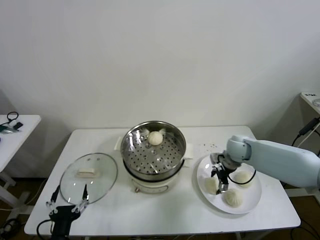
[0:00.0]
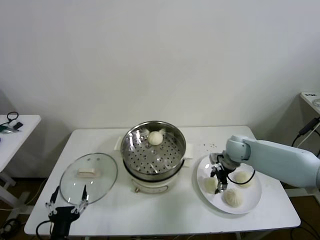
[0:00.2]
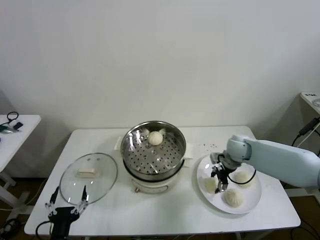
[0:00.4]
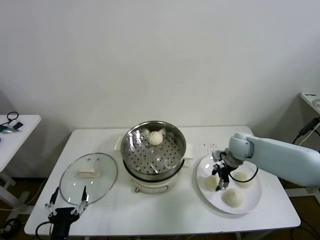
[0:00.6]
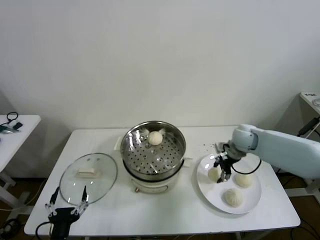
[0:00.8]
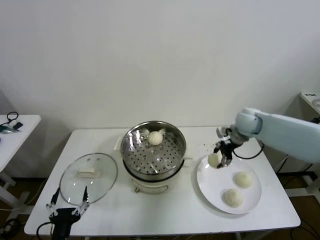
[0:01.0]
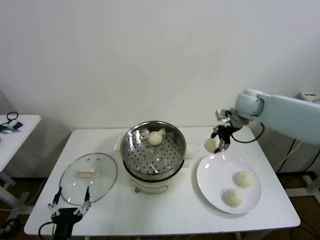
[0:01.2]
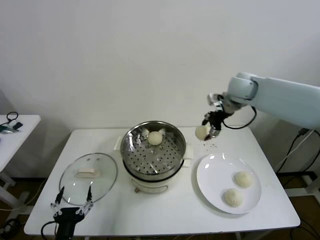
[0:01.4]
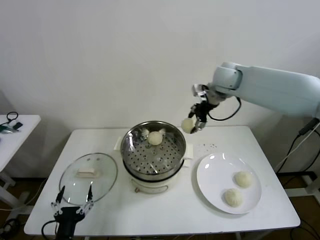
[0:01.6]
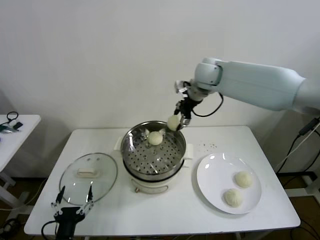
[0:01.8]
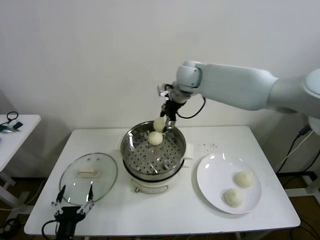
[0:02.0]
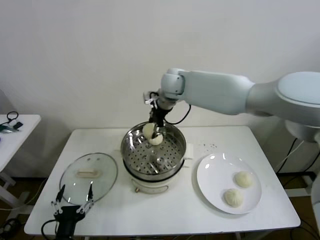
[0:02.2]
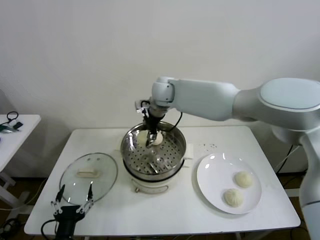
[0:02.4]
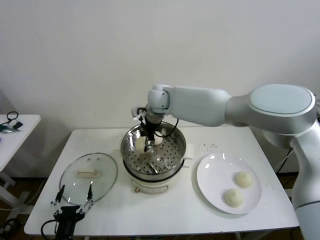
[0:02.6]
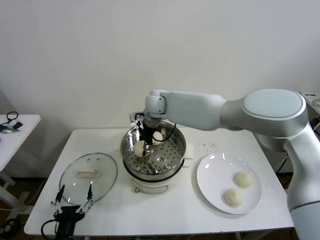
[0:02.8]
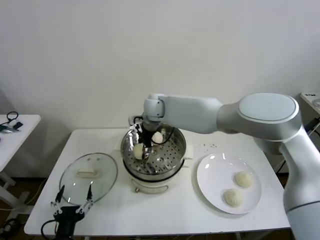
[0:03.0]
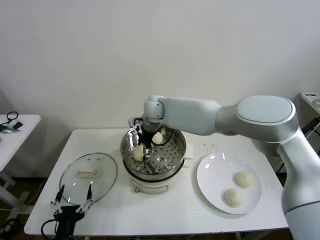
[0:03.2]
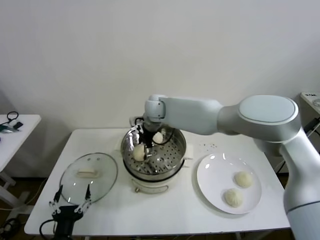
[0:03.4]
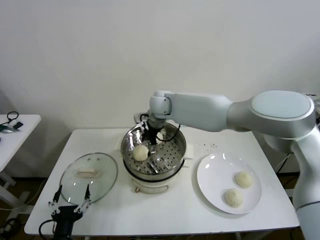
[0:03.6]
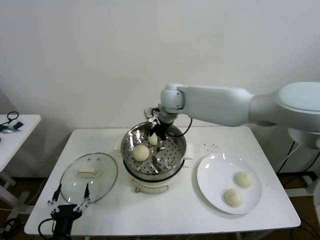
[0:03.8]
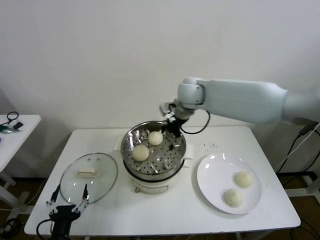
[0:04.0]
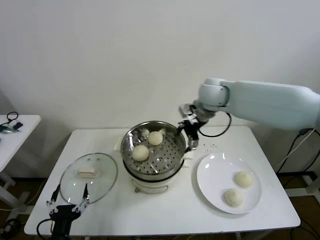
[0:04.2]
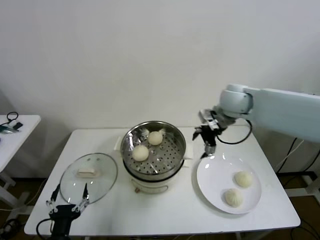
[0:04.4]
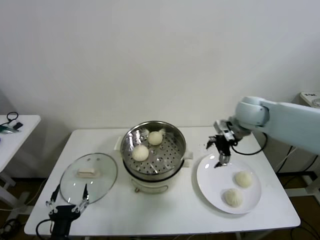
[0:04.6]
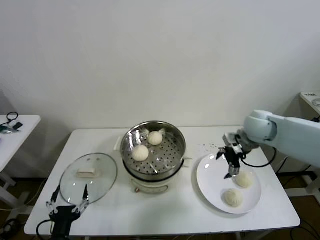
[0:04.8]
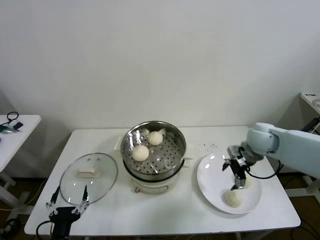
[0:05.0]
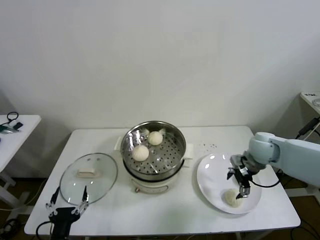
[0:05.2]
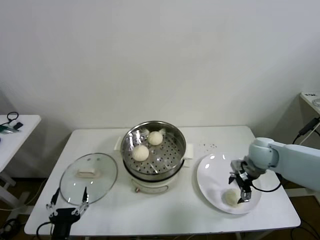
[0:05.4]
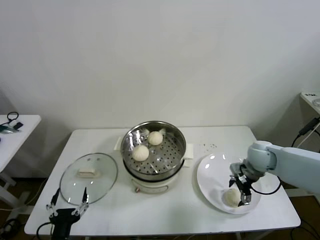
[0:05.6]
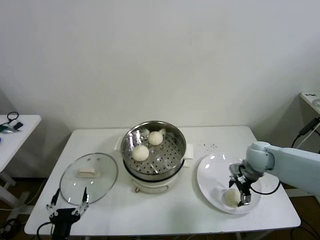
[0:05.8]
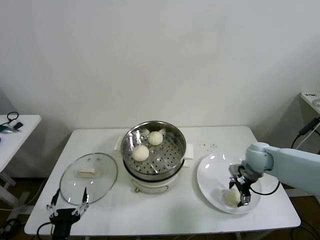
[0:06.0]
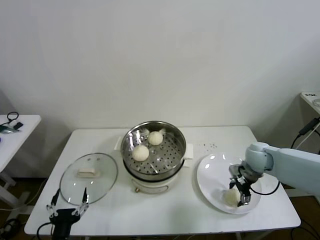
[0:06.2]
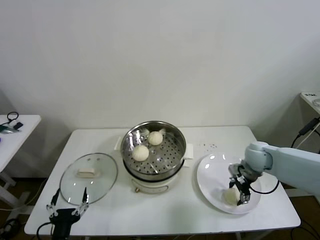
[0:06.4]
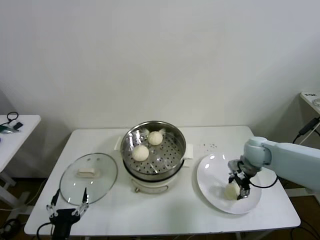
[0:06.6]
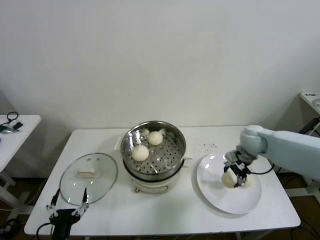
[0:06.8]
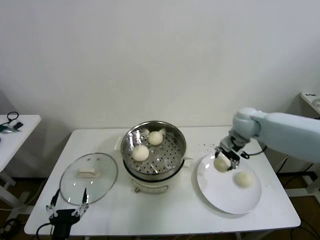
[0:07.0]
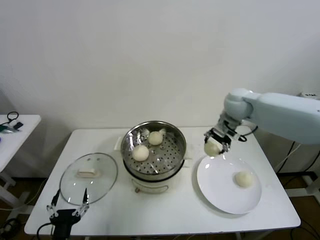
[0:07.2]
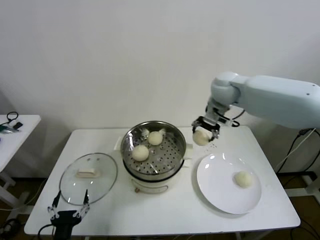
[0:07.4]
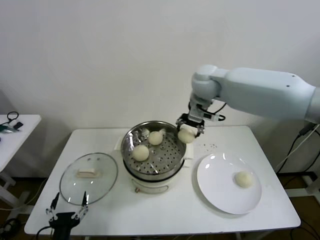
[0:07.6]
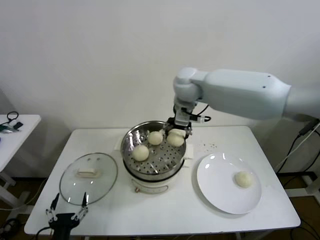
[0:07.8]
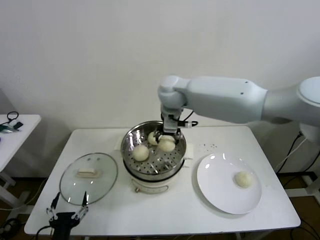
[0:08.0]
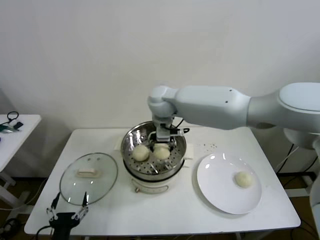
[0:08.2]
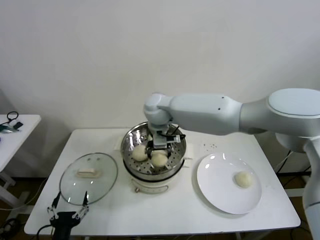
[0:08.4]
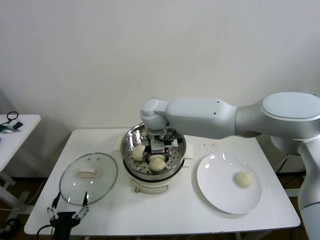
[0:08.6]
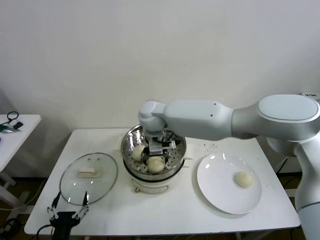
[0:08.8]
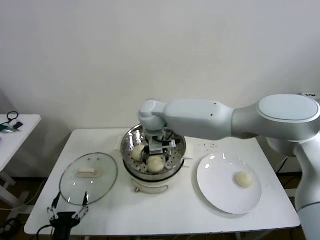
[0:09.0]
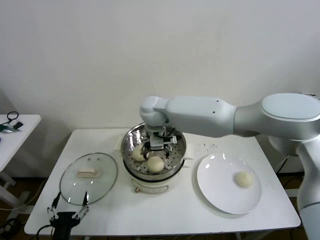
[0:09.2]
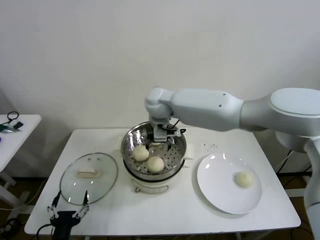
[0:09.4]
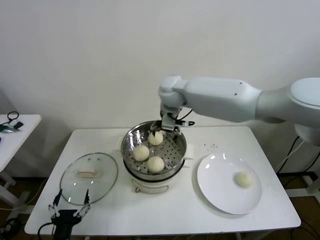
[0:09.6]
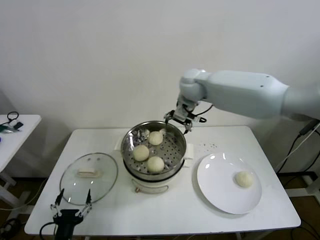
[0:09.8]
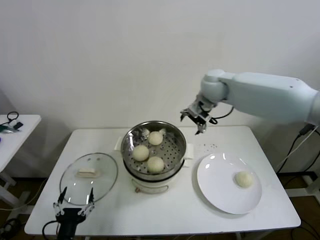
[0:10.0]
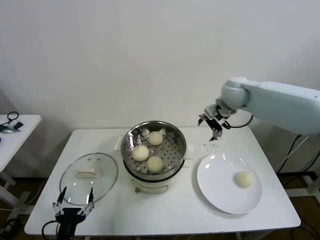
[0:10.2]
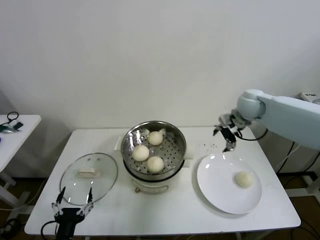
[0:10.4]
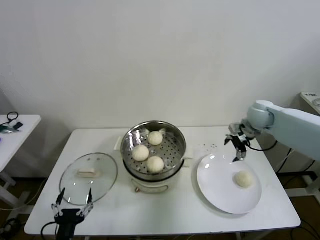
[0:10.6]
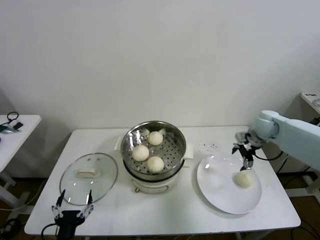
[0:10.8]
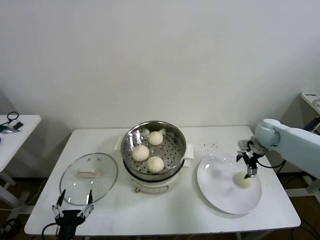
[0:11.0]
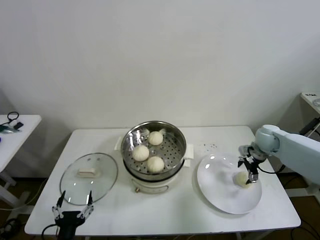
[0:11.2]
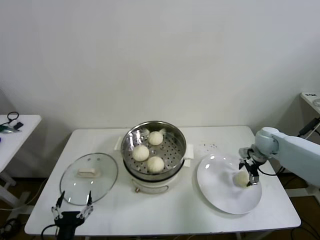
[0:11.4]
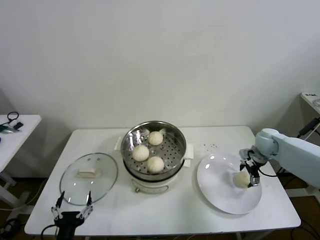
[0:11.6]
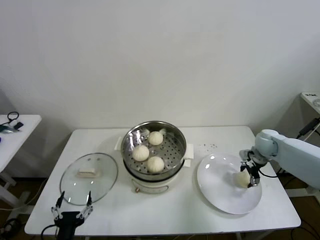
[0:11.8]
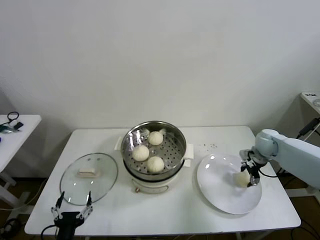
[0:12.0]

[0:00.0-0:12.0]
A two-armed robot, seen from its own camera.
Step, 0:00.4 to 0:03.0: Place the baozi on the steamer with right gripper.
Step, 0:03.2 to 0:06.2: Grasp the baozi in the plate with right gripper.
Step, 0:06.4 to 0:08.6: Place the baozi on the steamer with right gripper.
Step, 0:09.0 to 0:11.8: Grasp the baozi in the plate with right gripper.
0:00.0 to 0:01.6: The right gripper is displaced upward by approximately 25 cm, and closes its fingers.
0:01.6 to 0:03.0: The right gripper shifts some 25 cm to the left and downward.
0:03.0 to 0:04.4: The right gripper goes about 25 cm to the right, and opens up.
0:04.4 to 0:06.0: The right gripper is displaced downward and to the right by some 20 cm.
0:06.0 to 0:07.6: The right gripper heads upward and to the left, covering approximately 35 cm, and closes up.
0:07.6 to 0:09.0: The right gripper travels to the left and downward by roughly 20 cm, and opens up.
0:09.0 to 0:10.4: The right gripper is displaced to the right by approximately 35 cm.
0:10.4 to 0:12.0: The right gripper travels downward and to the right by roughly 20 cm, and closes its fingers.

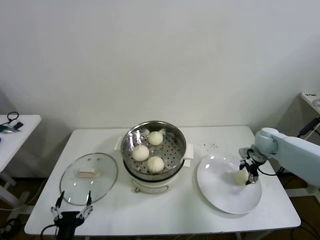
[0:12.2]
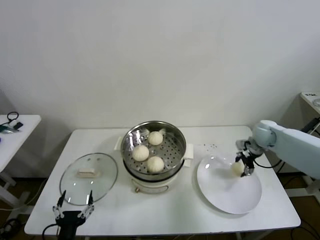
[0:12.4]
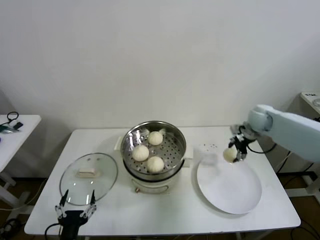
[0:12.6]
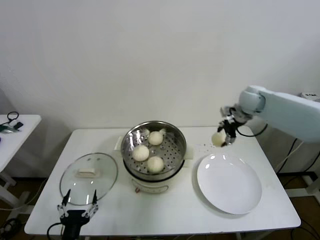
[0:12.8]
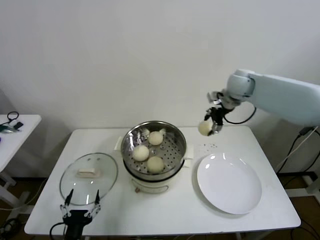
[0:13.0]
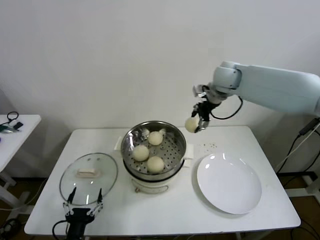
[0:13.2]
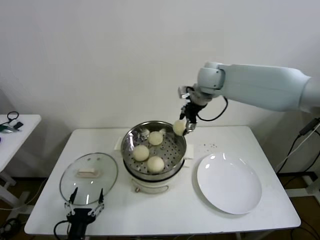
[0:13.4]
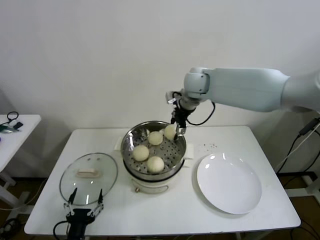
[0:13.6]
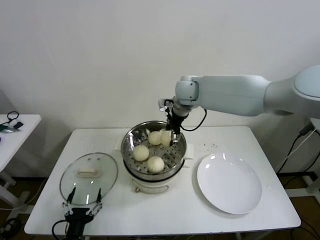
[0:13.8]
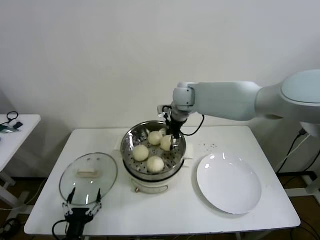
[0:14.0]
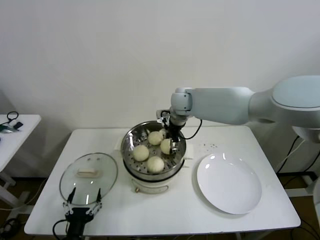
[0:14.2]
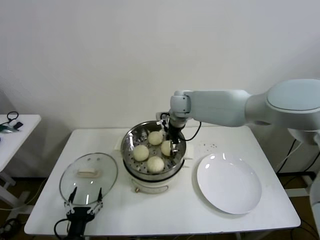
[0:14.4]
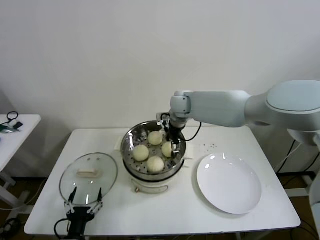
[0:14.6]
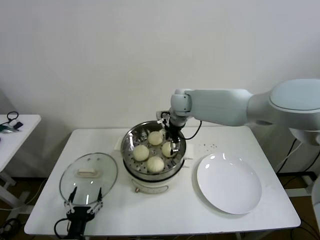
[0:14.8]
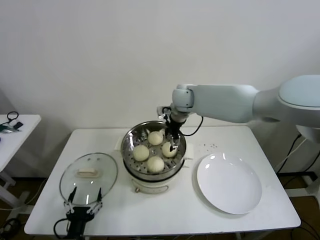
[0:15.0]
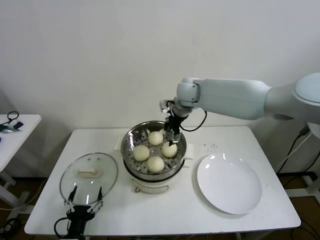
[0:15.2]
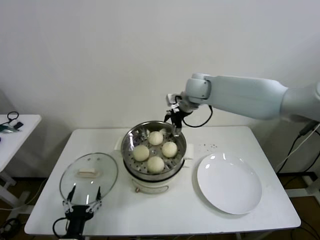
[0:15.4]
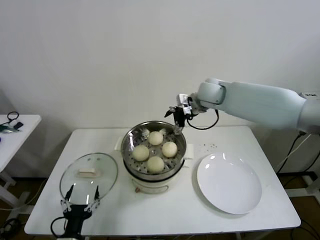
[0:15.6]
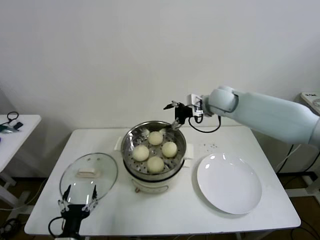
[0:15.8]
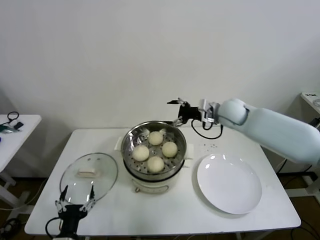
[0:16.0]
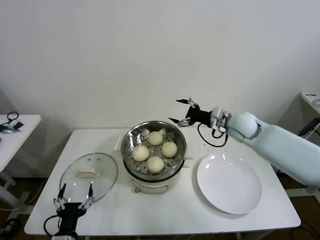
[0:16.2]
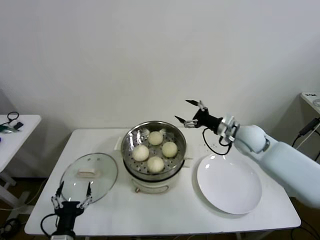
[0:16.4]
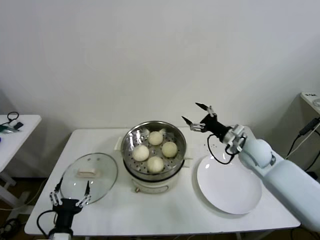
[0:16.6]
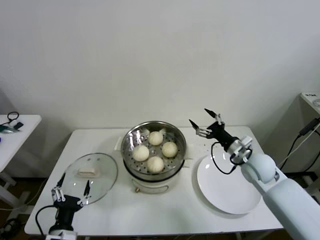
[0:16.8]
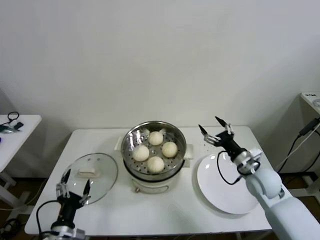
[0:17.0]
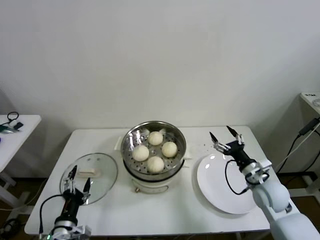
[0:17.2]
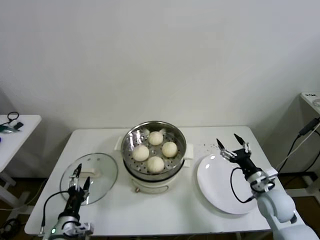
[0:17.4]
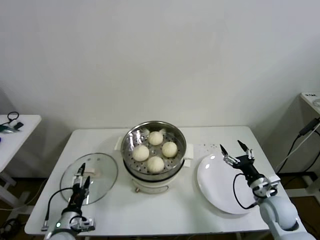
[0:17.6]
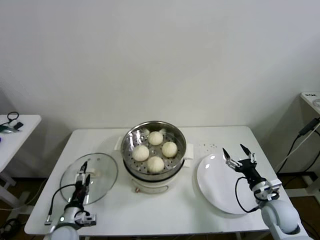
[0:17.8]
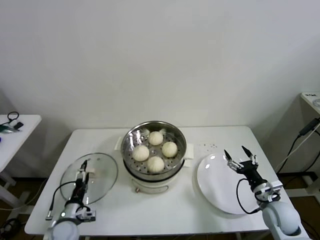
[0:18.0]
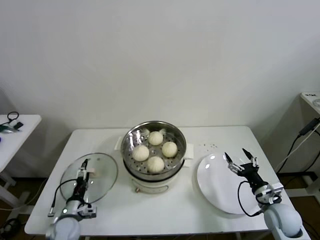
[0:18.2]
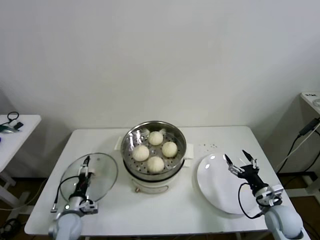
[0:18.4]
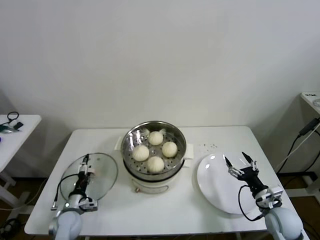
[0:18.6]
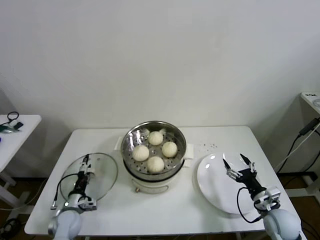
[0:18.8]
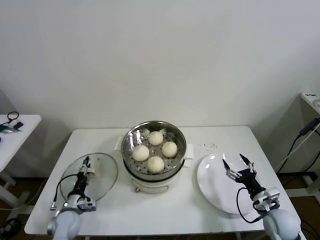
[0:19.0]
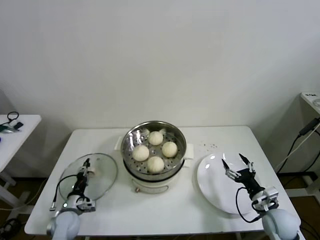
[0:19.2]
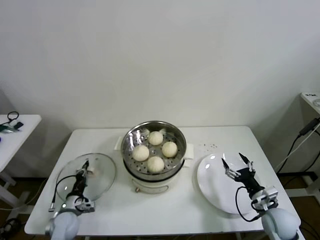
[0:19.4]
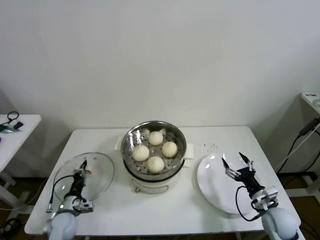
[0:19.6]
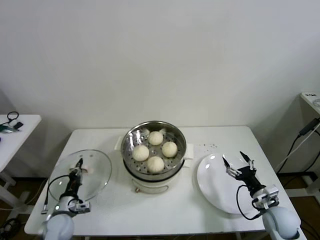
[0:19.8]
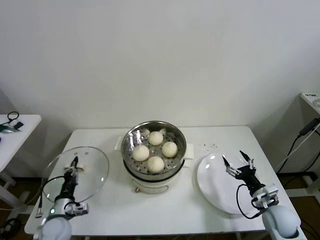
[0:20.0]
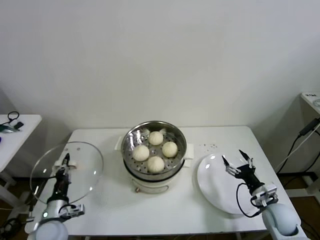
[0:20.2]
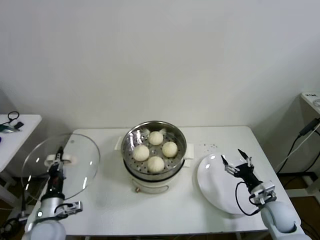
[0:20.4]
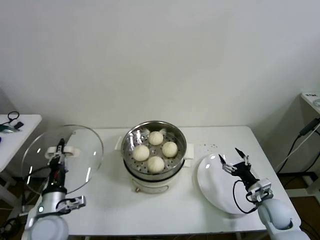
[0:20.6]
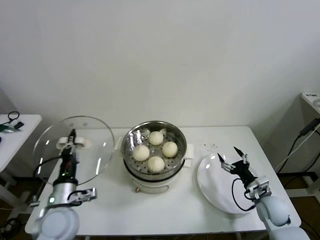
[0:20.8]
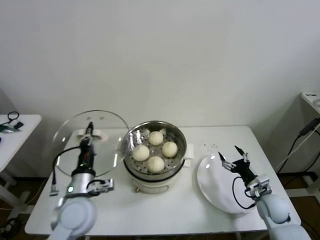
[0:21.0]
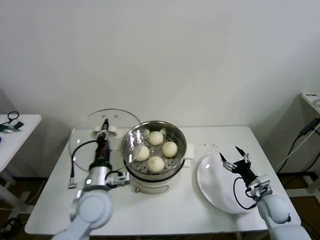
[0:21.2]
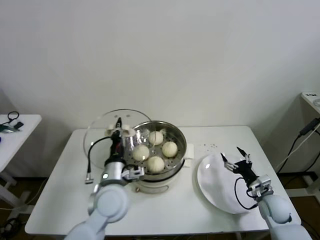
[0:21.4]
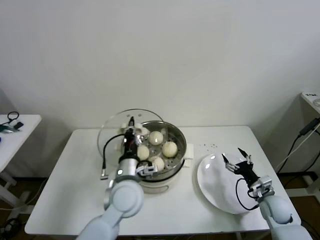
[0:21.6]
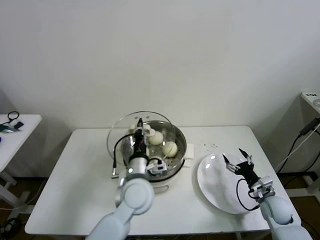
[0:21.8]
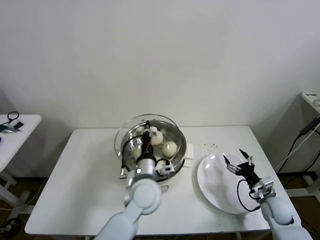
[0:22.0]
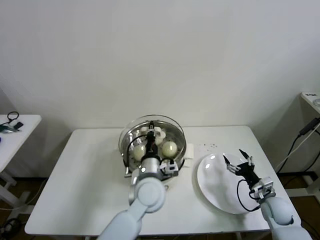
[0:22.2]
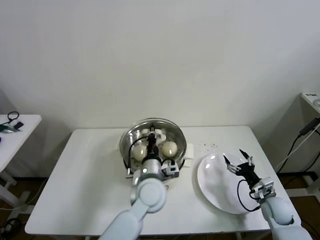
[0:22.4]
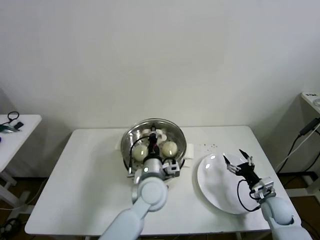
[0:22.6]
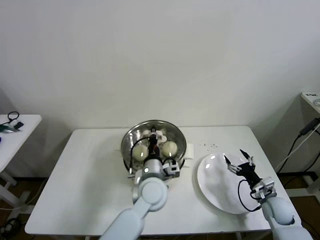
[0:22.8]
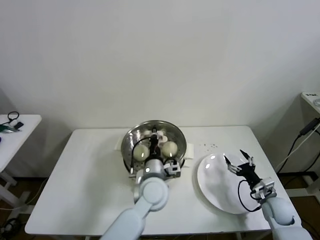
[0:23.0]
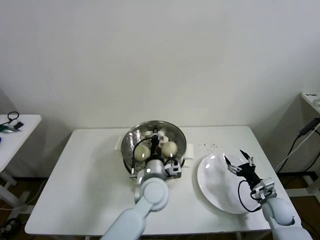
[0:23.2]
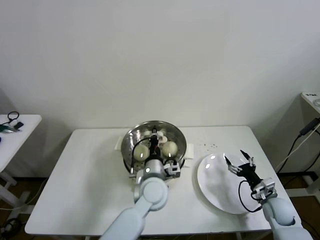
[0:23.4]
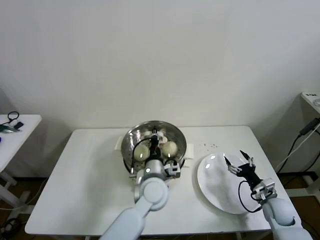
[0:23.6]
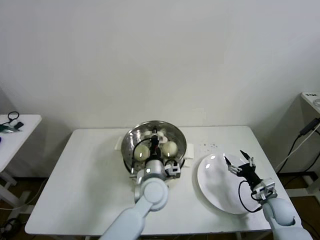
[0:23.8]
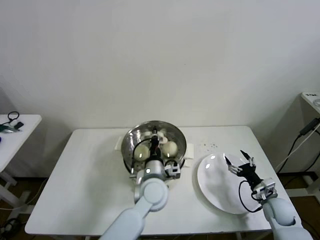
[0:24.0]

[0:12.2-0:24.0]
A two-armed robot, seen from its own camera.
Step, 0:12.2 to 0:14.6: Place the baozi on the steamer with right gripper.
Step, 0:14.8 to 0:19.4: Grasp the pot lid with left gripper.
0:12.2 to 0:13.6: The right gripper moves to the left and upward, about 35 cm.
0:13.6 to 0:15.2: The right gripper opens up.
0:15.2 to 0:16.6: The right gripper heads to the right, backward and downward, covering about 30 cm.
0:16.6 to 0:18.2: The right gripper goes some 25 cm backward, downward and to the right; the left gripper is displaced forward, downward and to the left by approximately 15 cm.
0:18.2 to 0:19.6: The left gripper closes.
0:19.6 to 0:21.0: The left gripper is displaced upward and to the right by approximately 25 cm.
0:21.0 to 0:22.6: The left gripper moves to the right, about 20 cm.
0:22.6 to 0:24.0: The grippers make only small movements.
